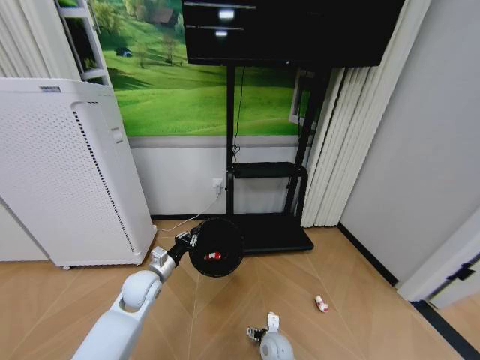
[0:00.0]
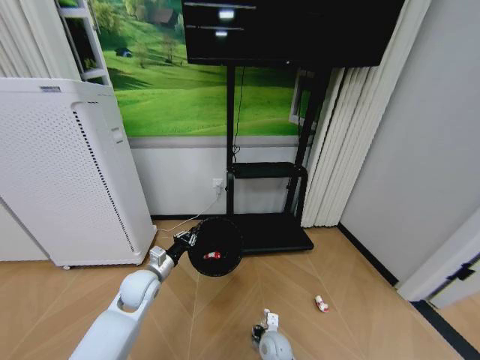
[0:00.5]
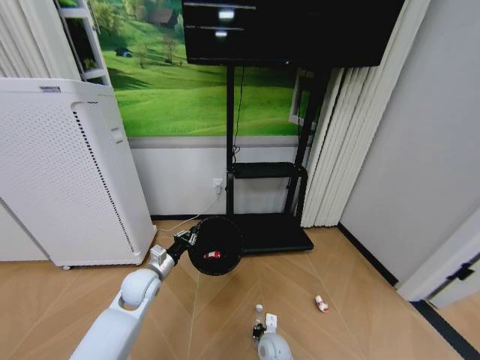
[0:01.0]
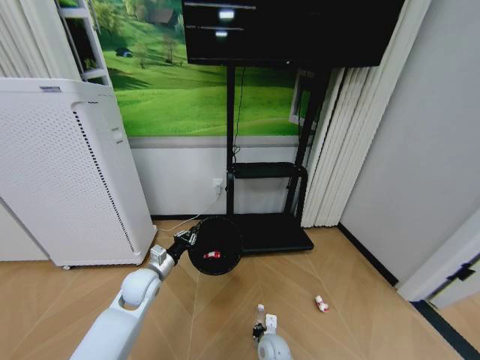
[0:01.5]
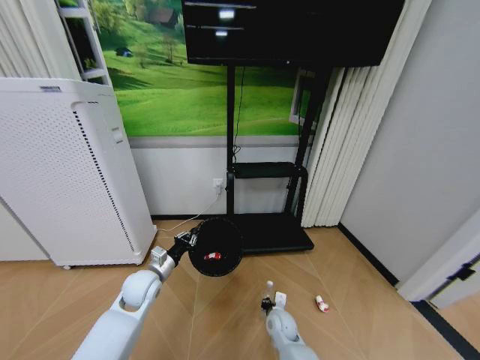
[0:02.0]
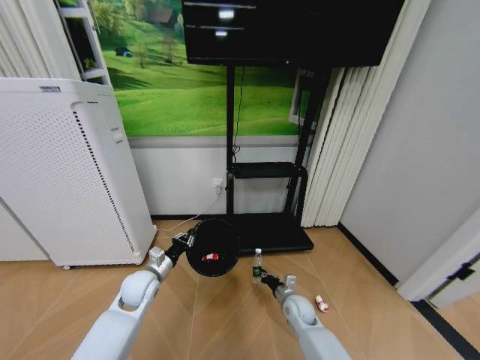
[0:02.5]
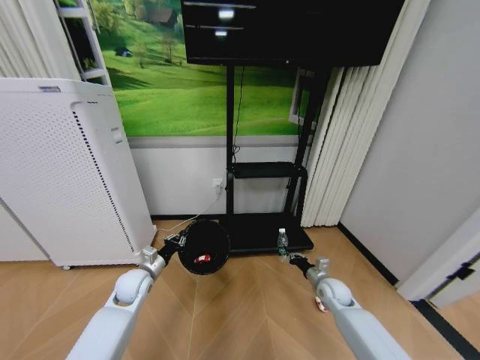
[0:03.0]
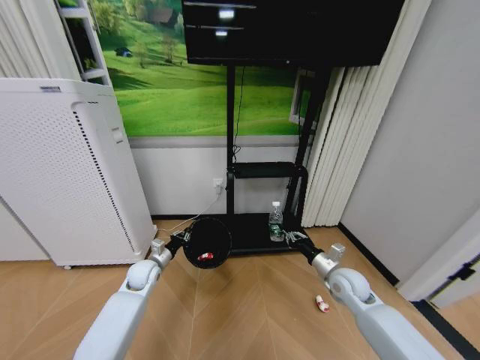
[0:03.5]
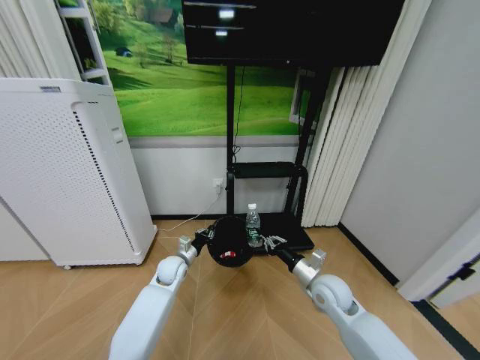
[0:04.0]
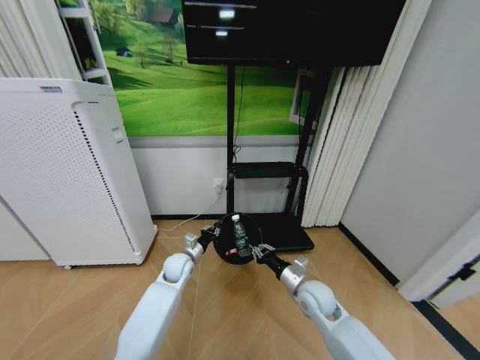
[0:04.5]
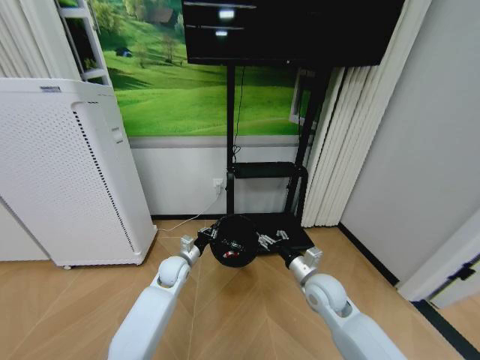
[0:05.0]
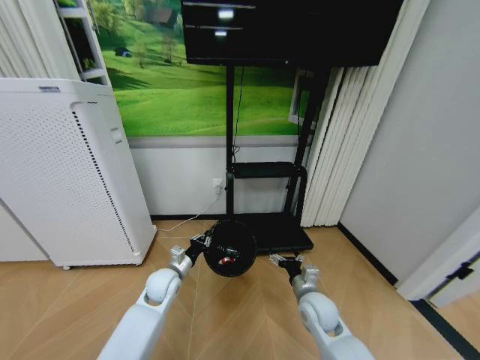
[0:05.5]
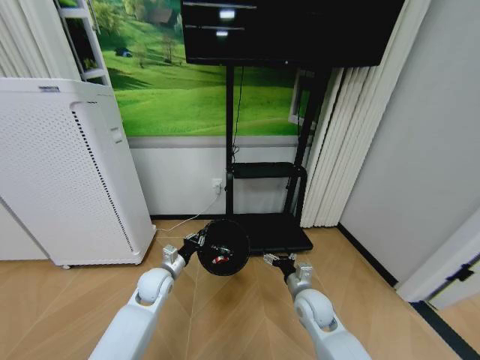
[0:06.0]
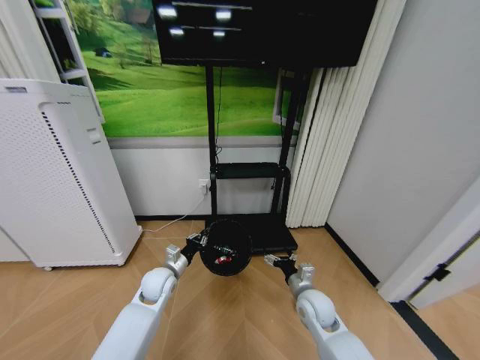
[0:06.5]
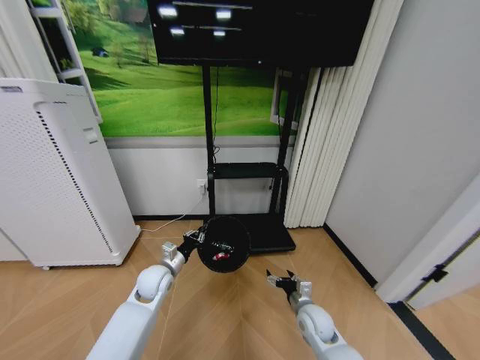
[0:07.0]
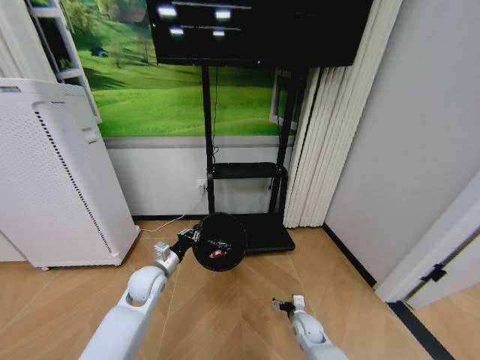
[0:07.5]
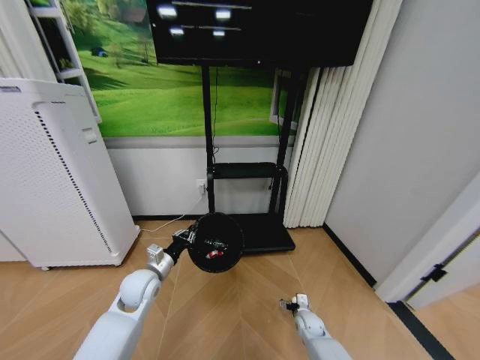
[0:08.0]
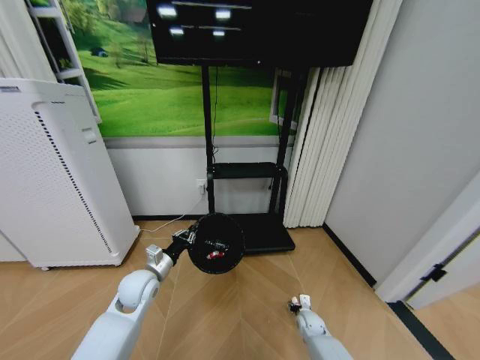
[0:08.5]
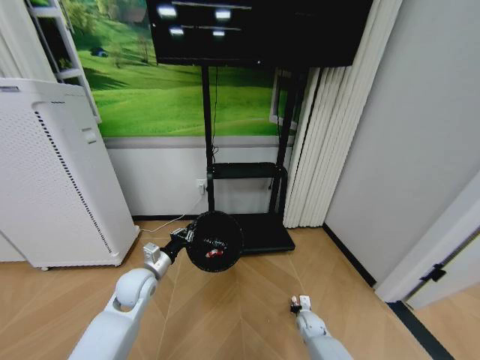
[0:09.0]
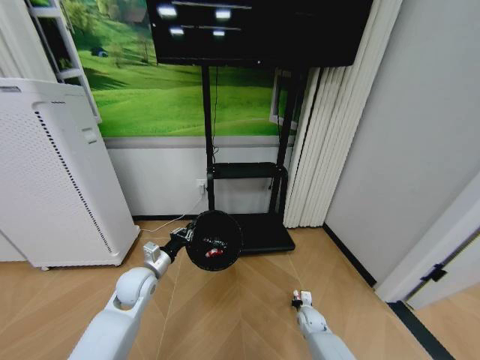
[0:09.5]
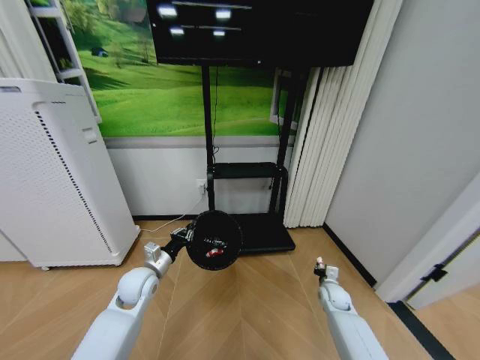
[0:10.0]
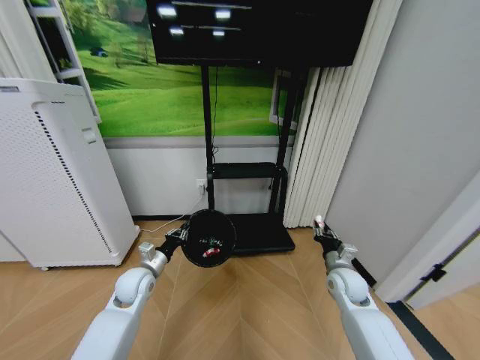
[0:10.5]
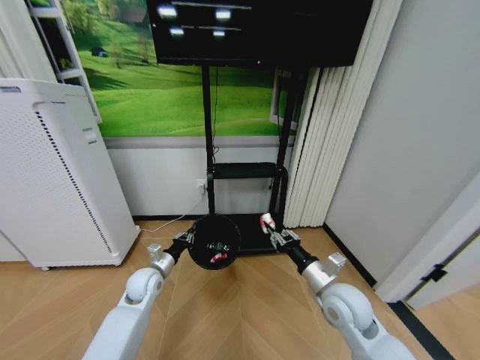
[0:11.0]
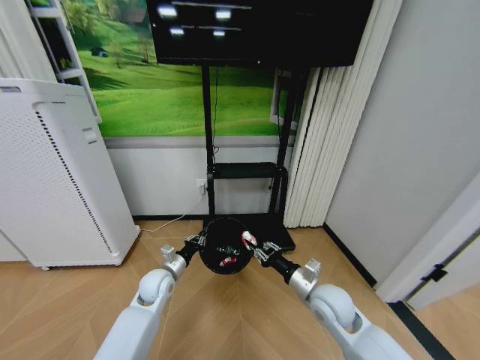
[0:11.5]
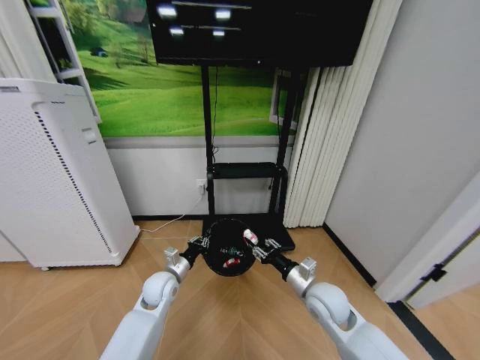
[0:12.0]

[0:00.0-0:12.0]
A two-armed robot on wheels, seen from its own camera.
Task of the whole recording: Pick up the trash bin and place the garbage on the floor into it.
0.0 to 2.0 s: The right gripper shifts roughly 5 cm forward, and closes up.
2.0 to 4.0 s: The left gripper moves forward and to the right, approximately 10 cm. The right gripper is displaced upward and to the right by about 25 cm.
4.0 to 6.0 s: The left gripper heads backward, covering some 5 cm, while the right gripper goes about 5 cm downward, and opens.
6.0 to 8.0 s: The right gripper moves downward, roughly 20 cm.
8.0 to 10.0 s: The right gripper is displaced upward, to the right and forward by some 15 cm, and closes.
10.0 to 12.0 s: The right gripper is displaced upward, to the left and backward by approximately 25 cm. The left gripper shifts about 5 cm to the right.

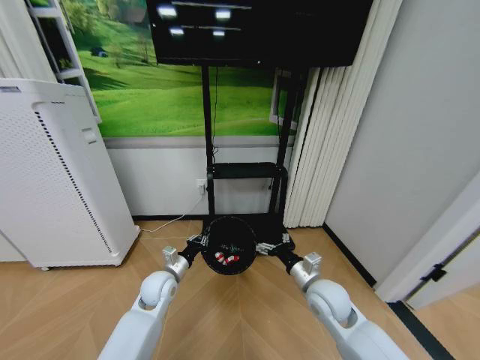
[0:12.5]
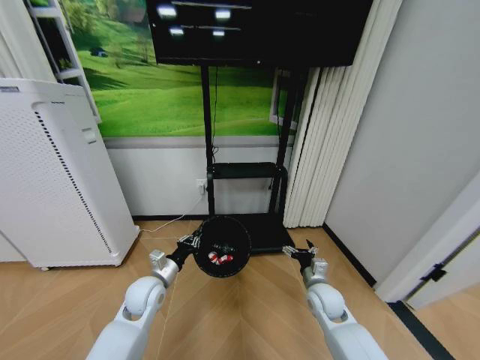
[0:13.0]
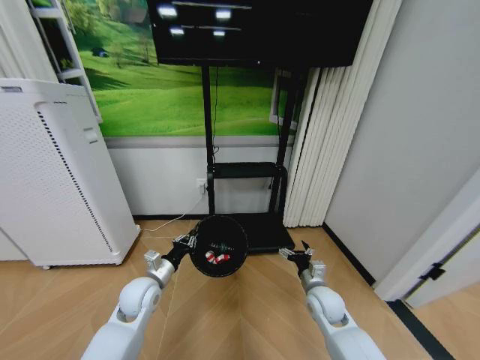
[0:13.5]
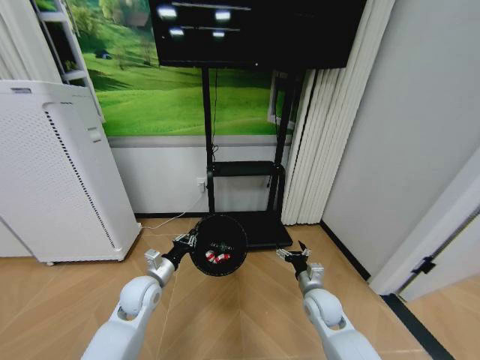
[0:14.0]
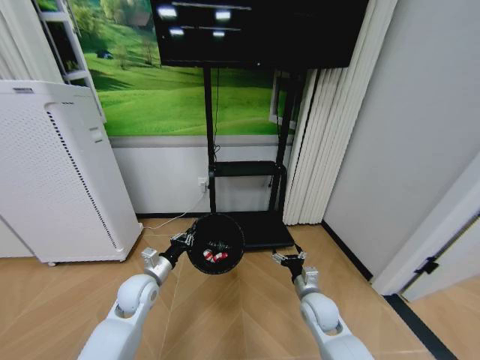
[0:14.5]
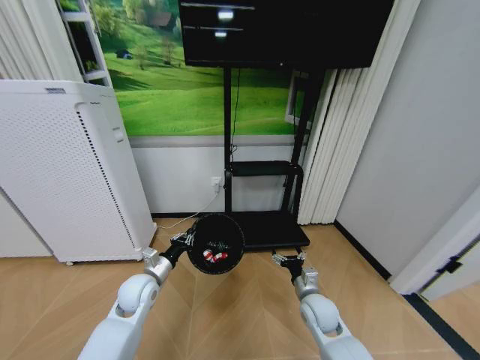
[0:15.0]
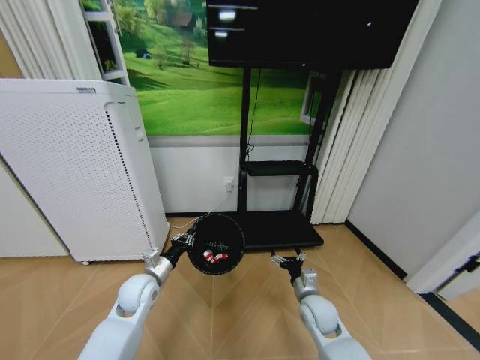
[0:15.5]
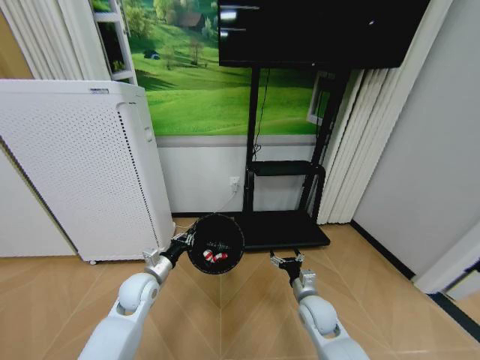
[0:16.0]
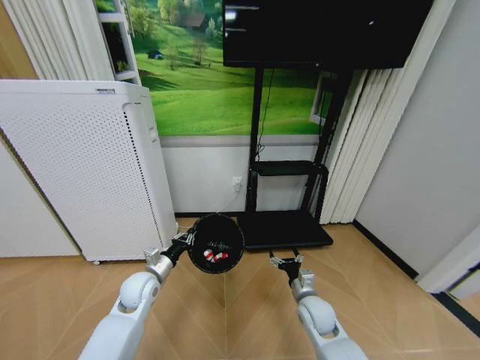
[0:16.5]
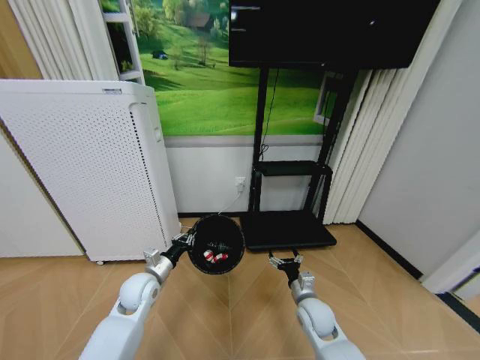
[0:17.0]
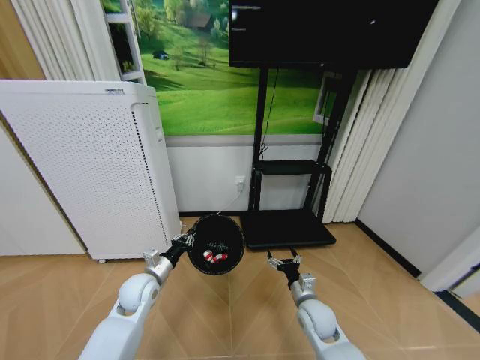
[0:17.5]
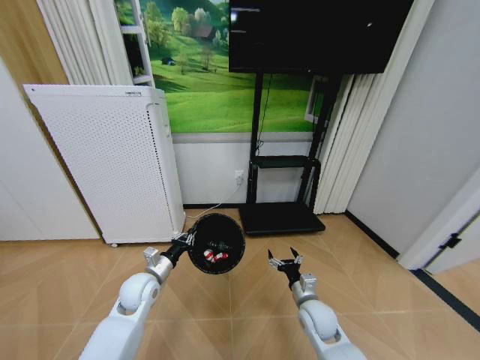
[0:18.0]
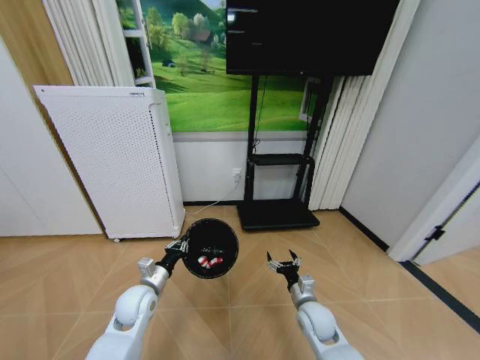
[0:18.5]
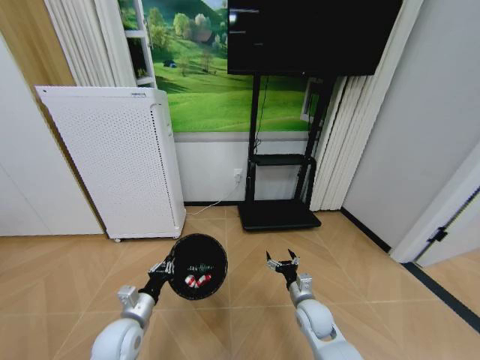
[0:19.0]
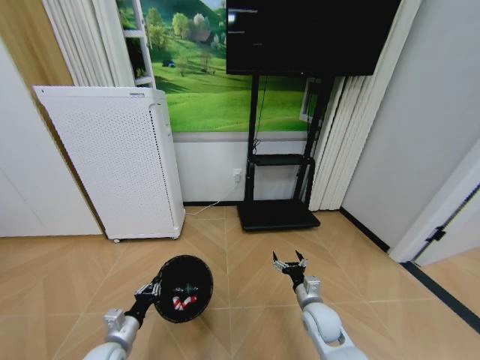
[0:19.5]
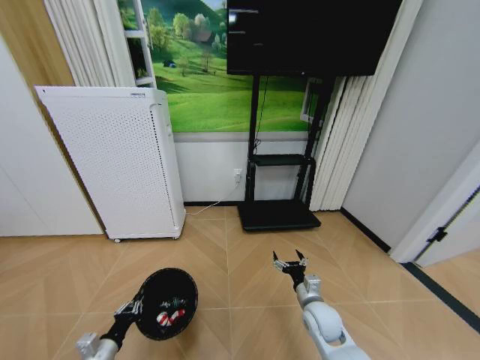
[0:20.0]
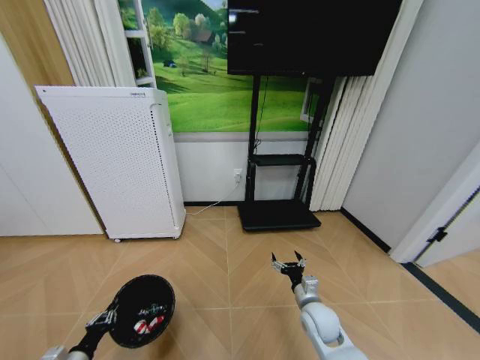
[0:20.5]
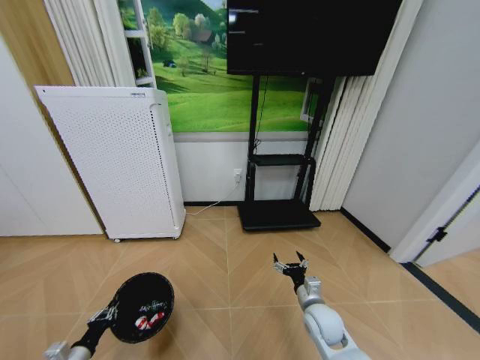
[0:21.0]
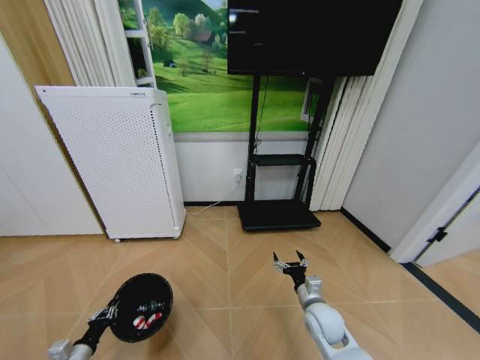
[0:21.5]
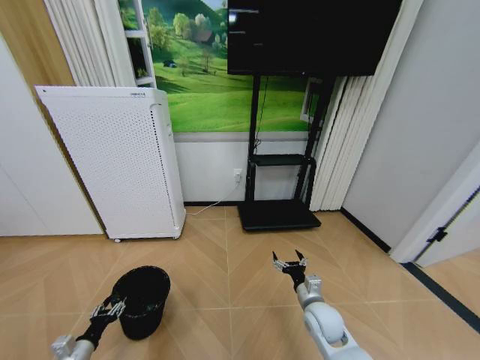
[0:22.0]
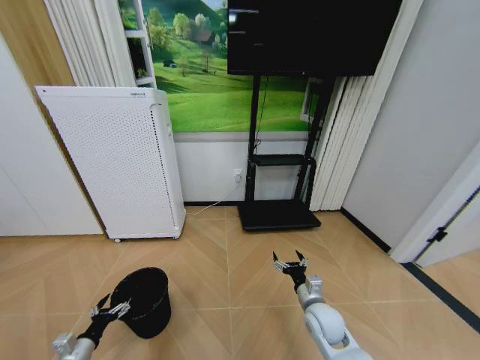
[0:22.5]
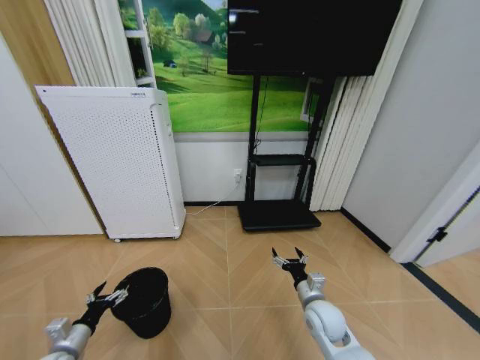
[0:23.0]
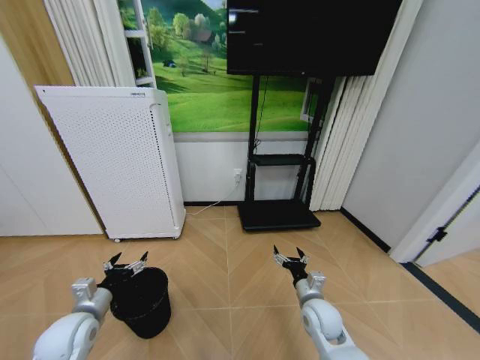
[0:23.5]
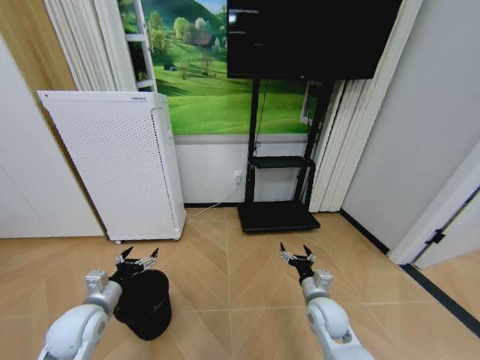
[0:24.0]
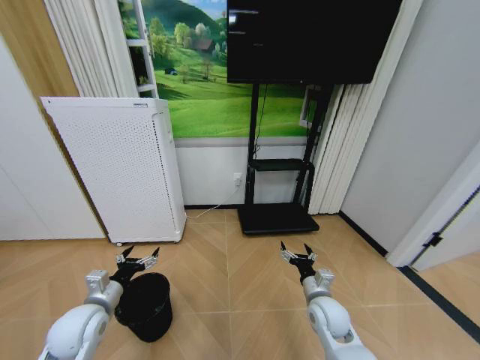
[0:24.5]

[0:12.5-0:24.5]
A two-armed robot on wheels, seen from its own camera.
Task of the whole recording: Pick up the trash bin and place the garbage on the floor into it.
12.5 to 14.5 s: The right gripper shifts about 10 cm downward. Meanwhile the left gripper shifts by some 5 cm.
18.5 to 20.5 s: The left gripper moves to the left, backward and downward, some 30 cm.
20.5 to 22.5 s: The left gripper opens.
22.5 to 24.5 s: The left gripper is displaced upward and to the right by about 20 cm.

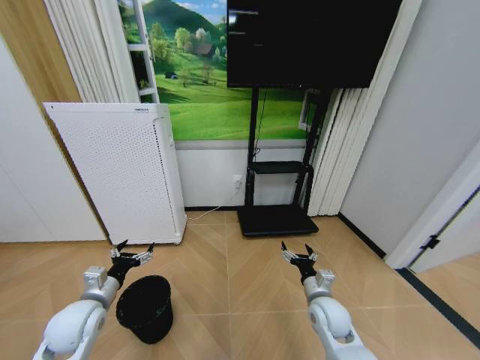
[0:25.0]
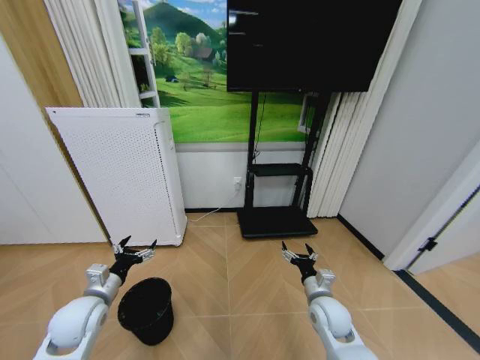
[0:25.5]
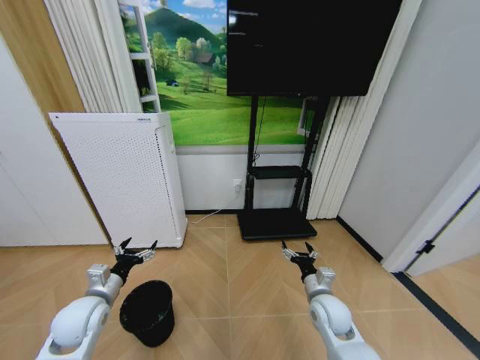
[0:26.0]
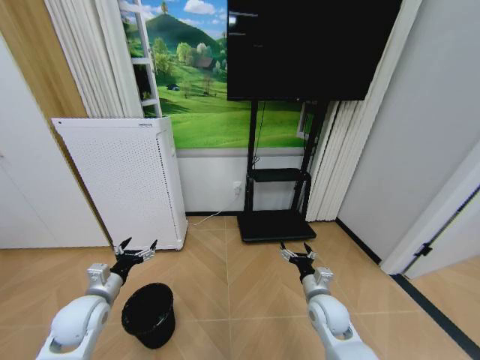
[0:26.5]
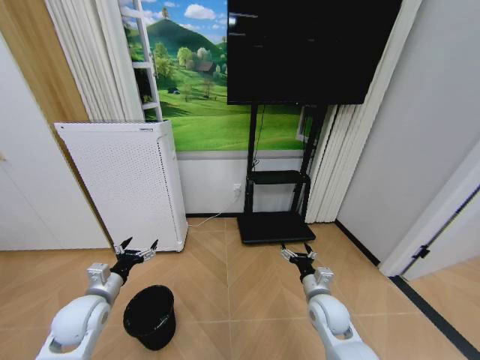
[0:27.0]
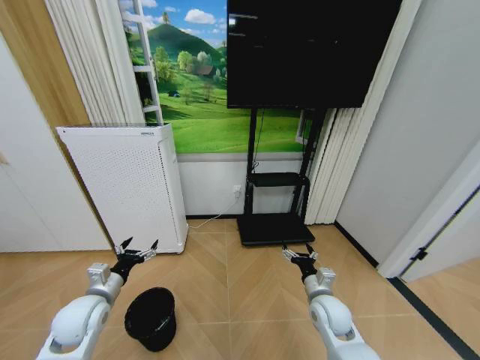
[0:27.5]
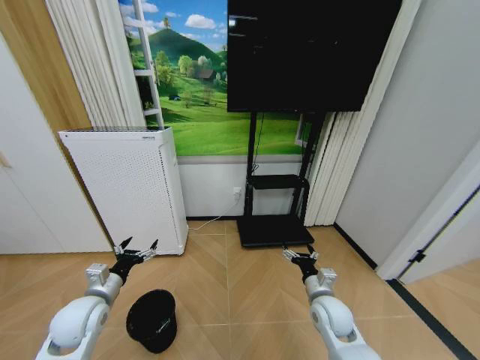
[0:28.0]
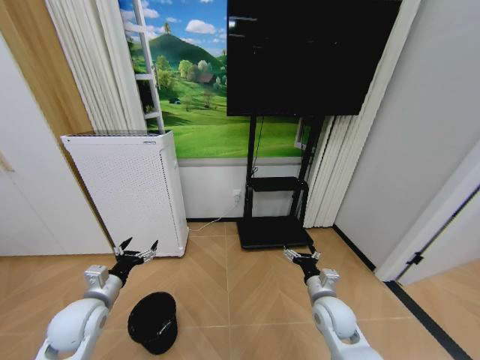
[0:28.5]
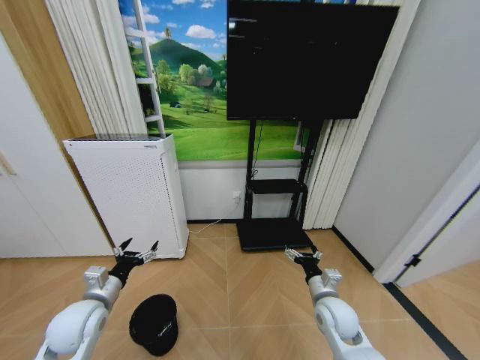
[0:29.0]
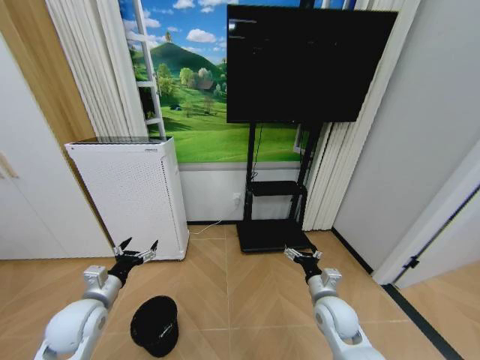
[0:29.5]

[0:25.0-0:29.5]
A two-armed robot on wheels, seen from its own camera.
Task of the whole recording: Pick up the trash bin and place the garbage on the floor into it.
25.0 to 27.0 s: The grippers make only small movements.
